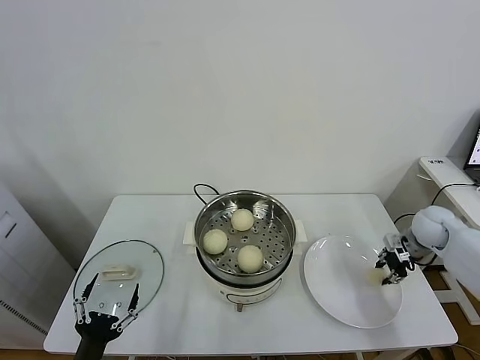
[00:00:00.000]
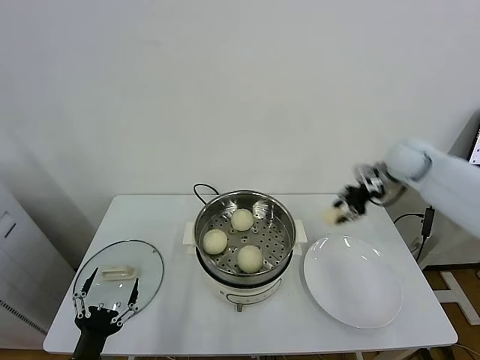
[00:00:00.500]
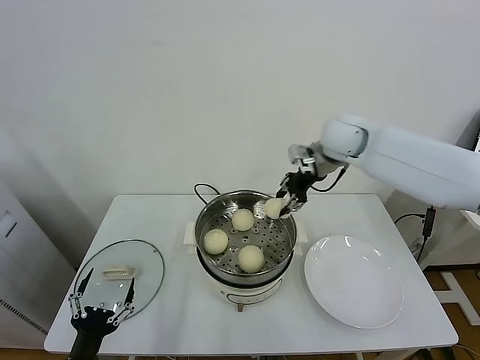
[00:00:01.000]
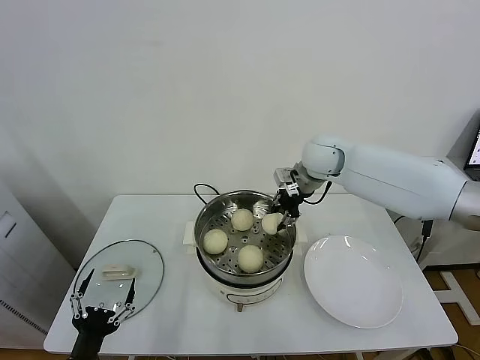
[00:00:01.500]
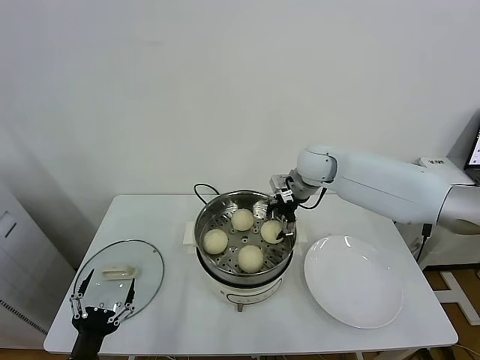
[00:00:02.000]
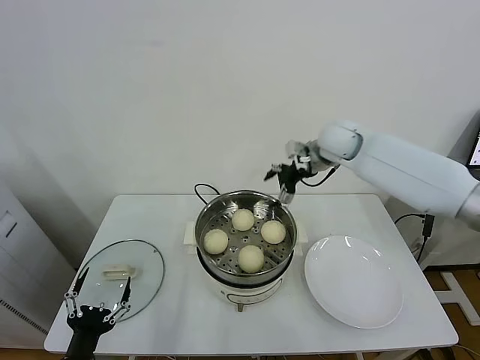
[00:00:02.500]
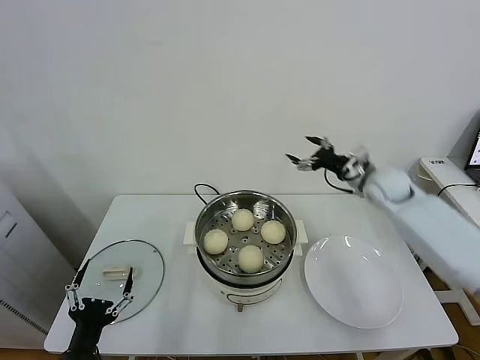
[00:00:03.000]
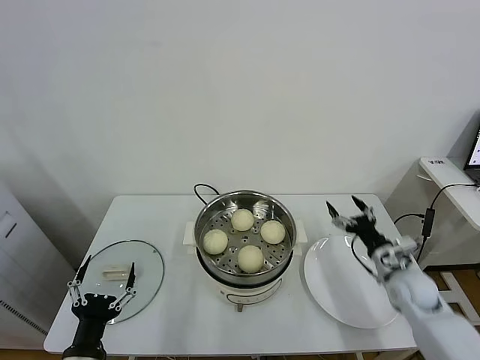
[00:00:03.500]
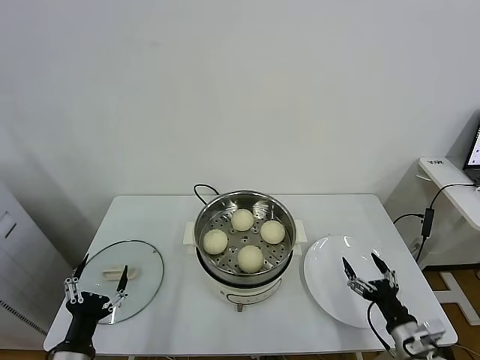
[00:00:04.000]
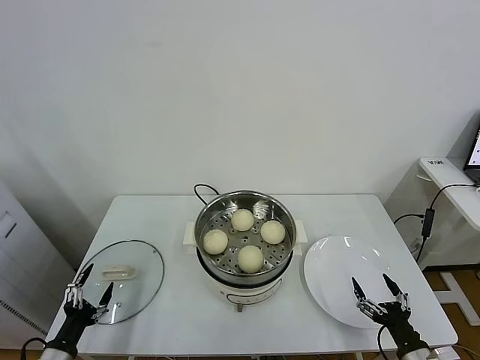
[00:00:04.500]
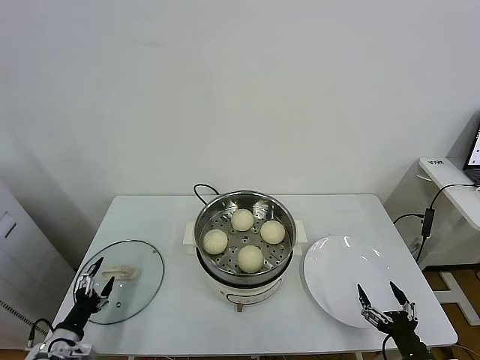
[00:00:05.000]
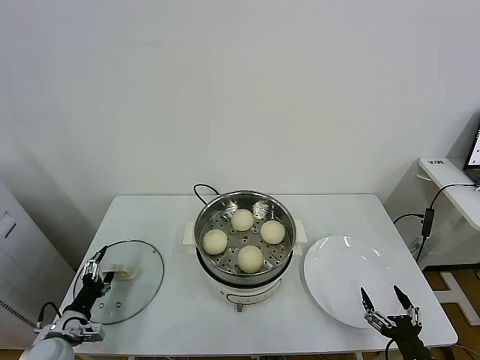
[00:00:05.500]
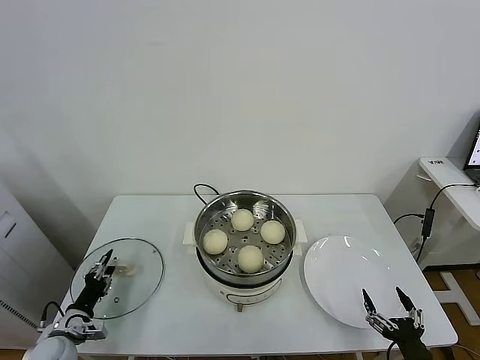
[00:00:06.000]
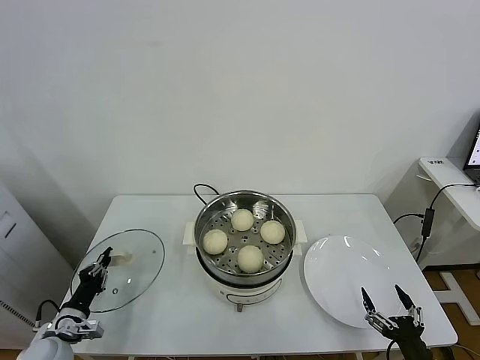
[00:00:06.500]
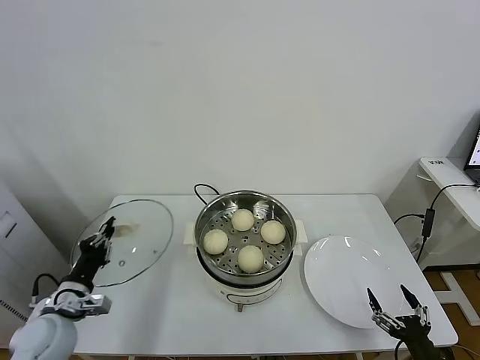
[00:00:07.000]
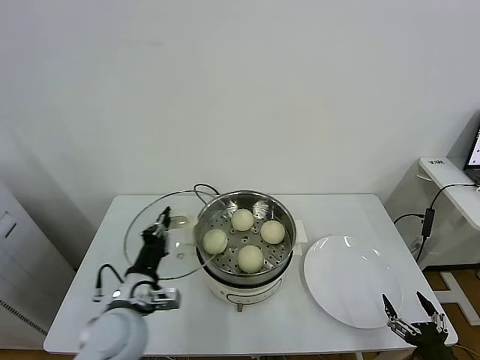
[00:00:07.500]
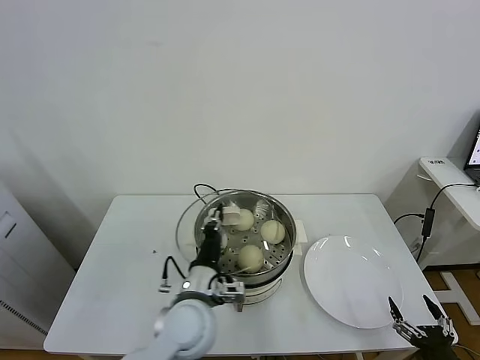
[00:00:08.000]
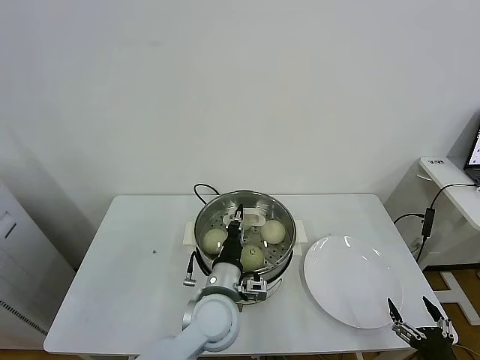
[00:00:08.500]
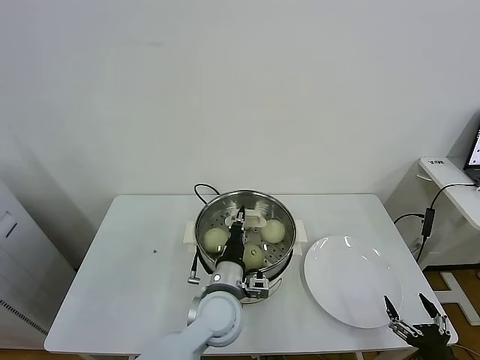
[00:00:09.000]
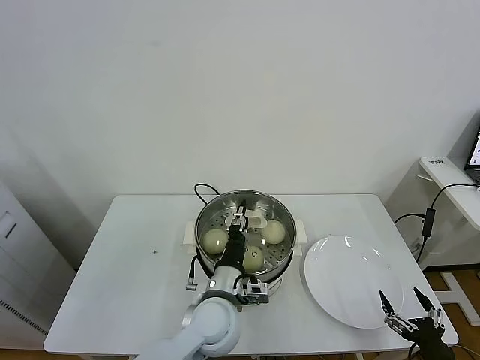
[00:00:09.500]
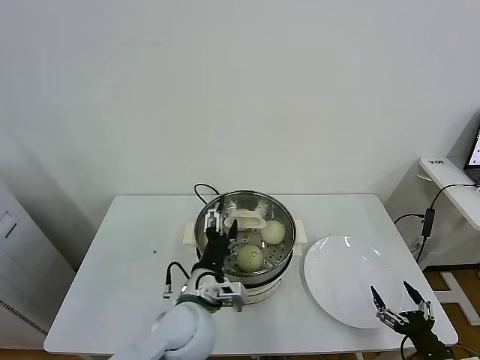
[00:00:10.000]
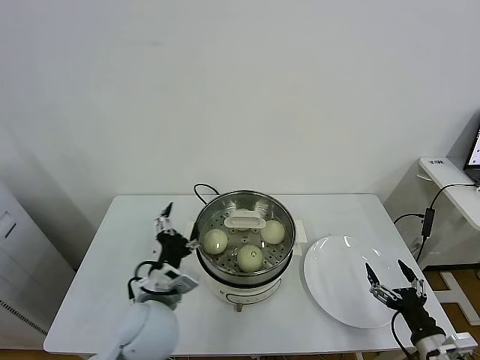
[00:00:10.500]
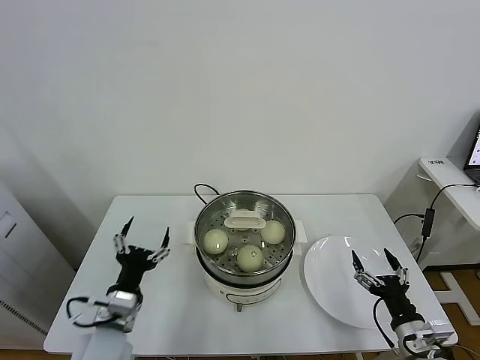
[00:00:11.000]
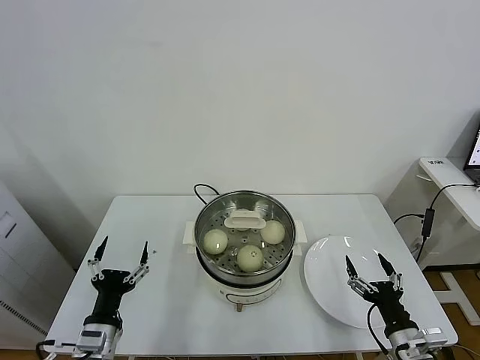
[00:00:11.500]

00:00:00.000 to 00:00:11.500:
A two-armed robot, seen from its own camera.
Task of the whole recording: take steamed baozi put them in steamer.
Step, 00:00:00.000 to 00:00:02.000: Place the baozi on the steamer with right gripper.
Step, 00:00:02.500 to 00:00:06.000: Grasp the pot lid with left gripper.
Step, 00:00:06.500 to 00:00:09.500: Place the pot lid on the steamer with left gripper.
00:00:00.000 to 00:00:02.000: The right gripper is displaced to the left and upward by some 30 cm, and opens.
00:00:02.000 to 00:00:04.000: The right gripper shifts some 50 cm backward, downward and to the right.
00:00:04.000 to 00:00:06.000: The left gripper goes roughly 20 cm forward, to the left and downward, and closes up. The right gripper heads backward, covering approximately 10 cm.
00:00:06.000 to 00:00:07.500: The left gripper travels to the right and upward by roughly 25 cm, and closes its fingers.
00:00:07.500 to 00:00:09.500: The left gripper moves to the right, approximately 20 cm, and opens.
00:00:09.500 to 00:00:11.500: The left gripper travels to the left by some 25 cm, and opens up, while the right gripper heads forward and to the left, covering about 10 cm.
